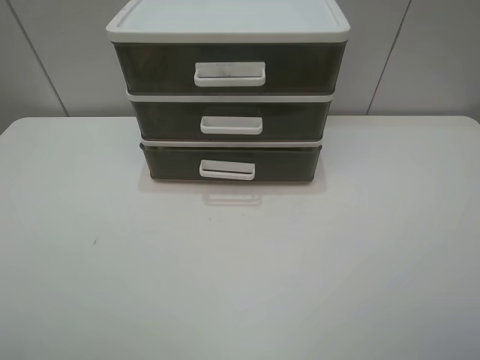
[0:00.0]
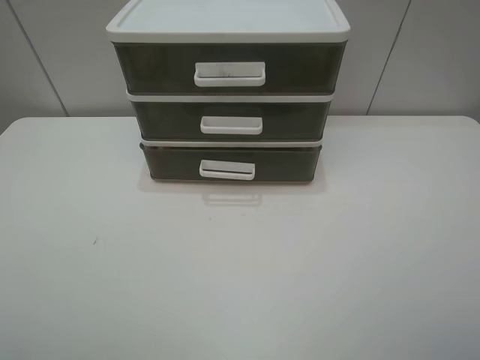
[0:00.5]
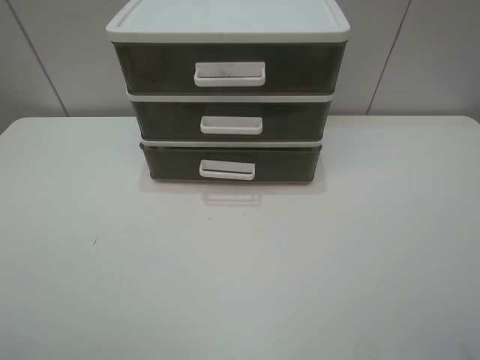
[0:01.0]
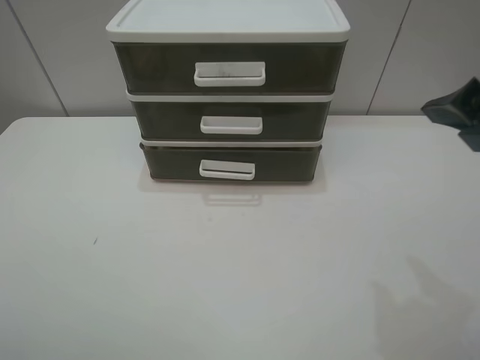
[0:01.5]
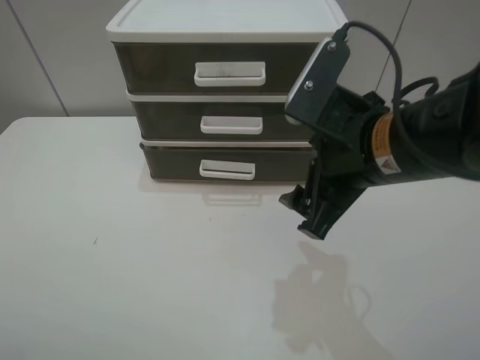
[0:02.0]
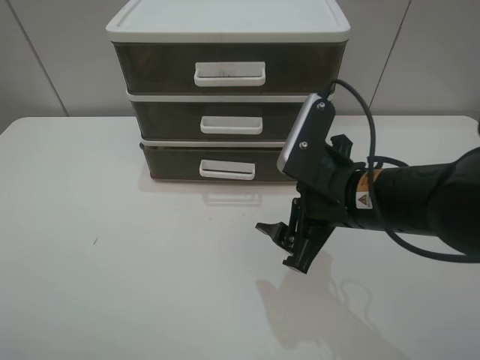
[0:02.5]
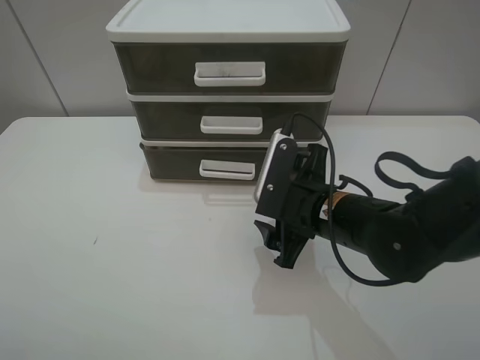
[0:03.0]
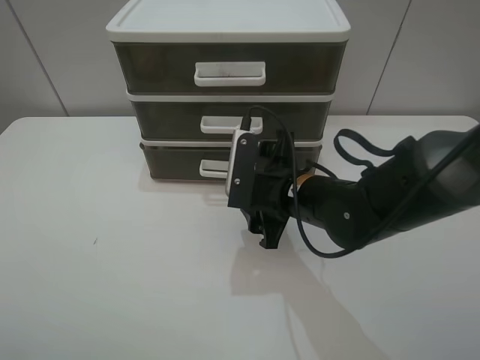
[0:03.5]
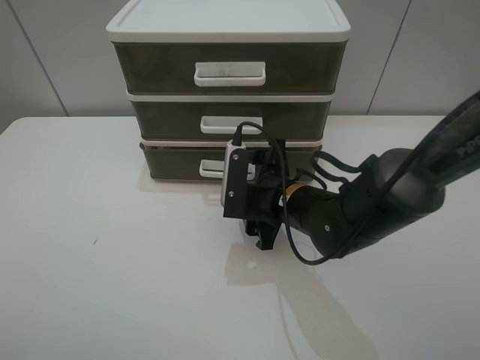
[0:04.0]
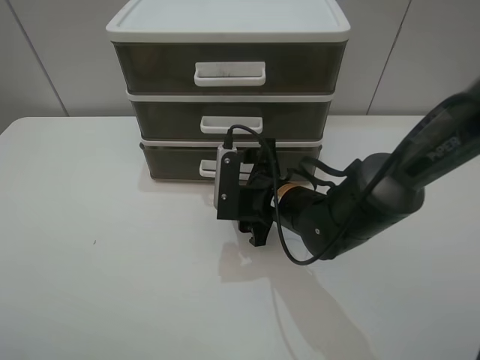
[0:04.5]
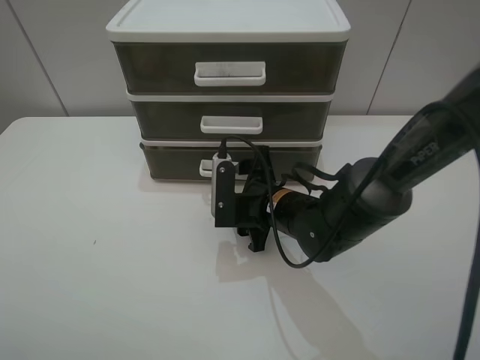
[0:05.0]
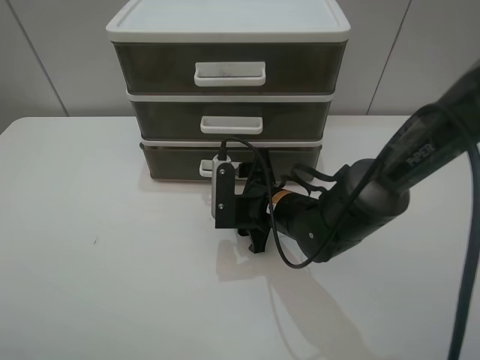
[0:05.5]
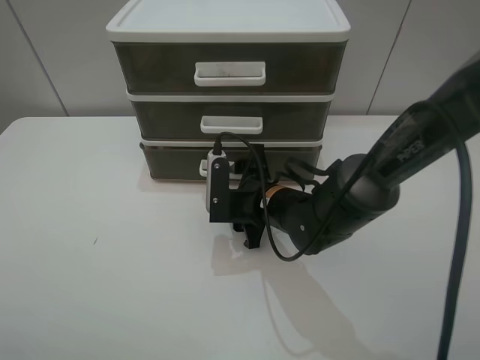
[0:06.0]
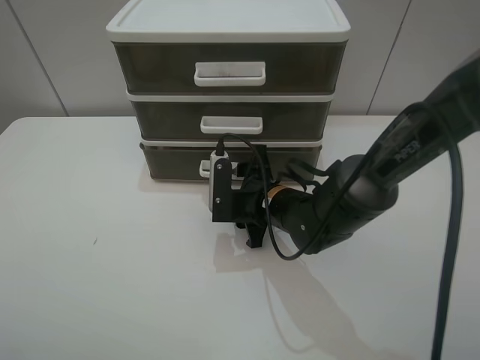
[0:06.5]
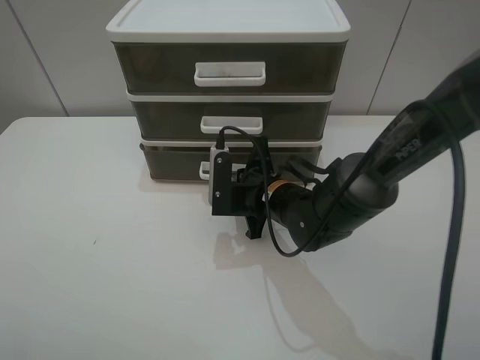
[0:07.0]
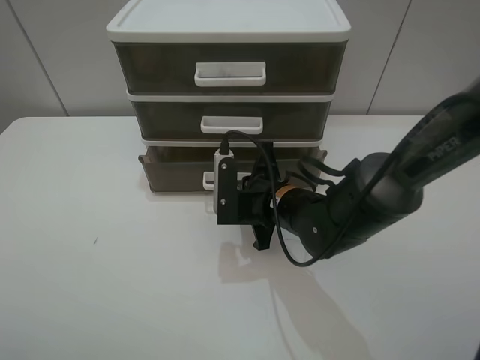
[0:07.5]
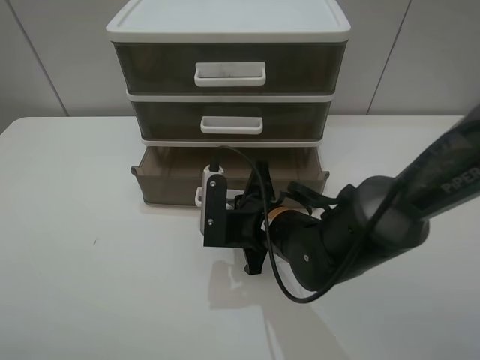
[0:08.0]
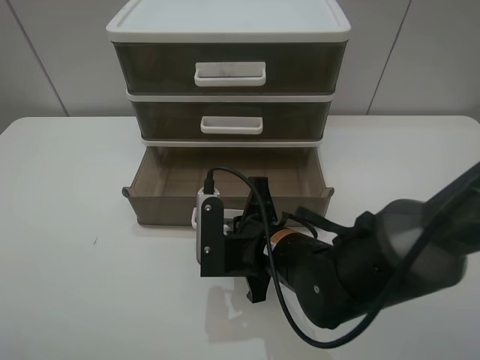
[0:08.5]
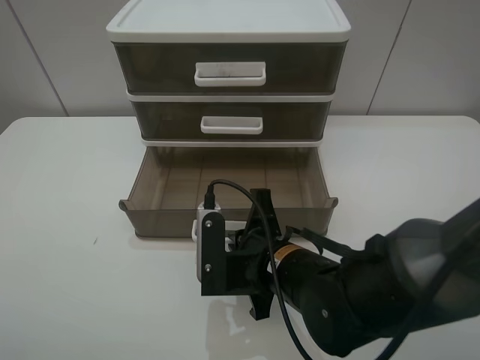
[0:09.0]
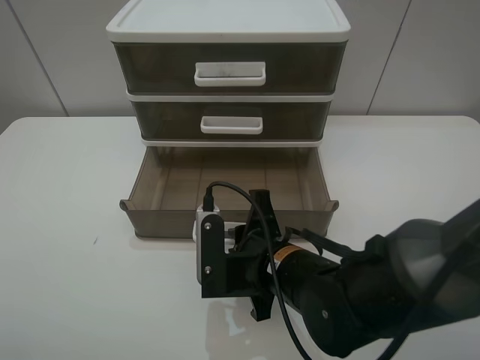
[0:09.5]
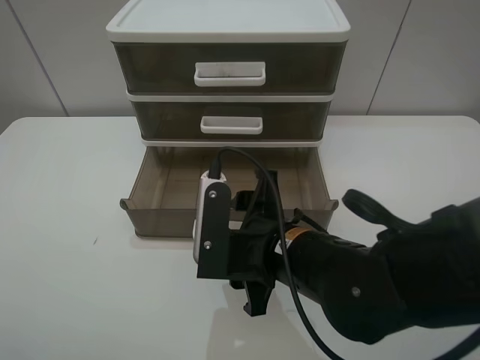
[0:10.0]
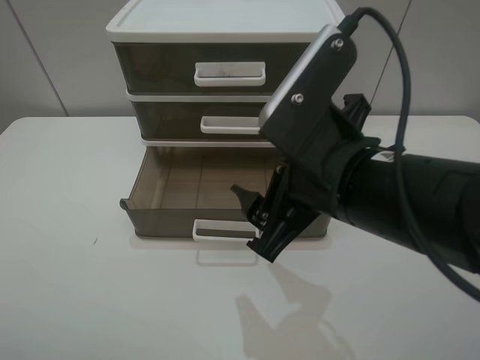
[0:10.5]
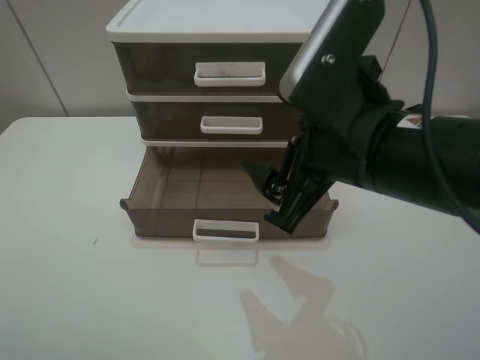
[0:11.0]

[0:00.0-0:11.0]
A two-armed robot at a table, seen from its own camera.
Task of the whole recording: open the bottom drawer.
Step, 0:00.0 to 0:07.0: Grab the bottom drawer with the right gripper.
Step, 0:07.5 to 0:09.5: Pull open the drawer with the right gripper.
0:00.0 to 0:02.0: The right gripper shifts roughly 25 cm forward and to the left.
0:02.0 to 0:03.5: The right gripper moves downward and forward, some 15 cm.
0:03.5 to 0:05.5: The right gripper moves approximately 5 cm.
0:05.5 to 0:07.5: The right gripper closes up.
0:07.5 to 0:09.0: The right gripper moves backward, roughly 10 cm.
0:09.0 to 0:11.0: The right gripper goes about 15 cm upward, and opens.

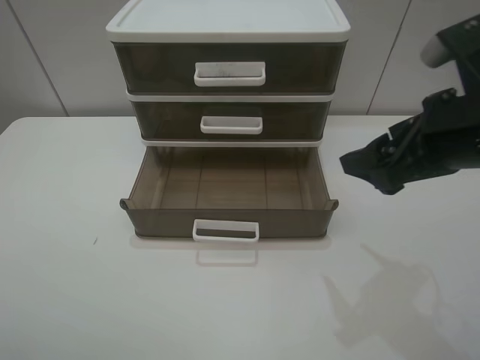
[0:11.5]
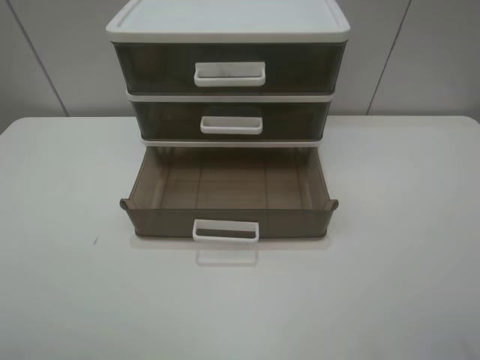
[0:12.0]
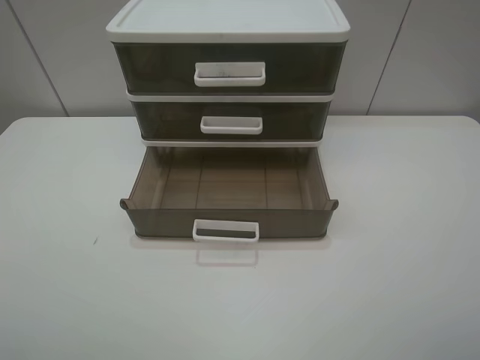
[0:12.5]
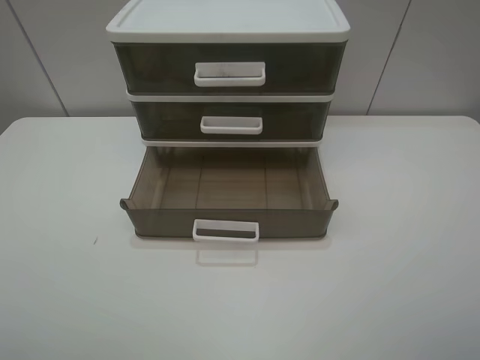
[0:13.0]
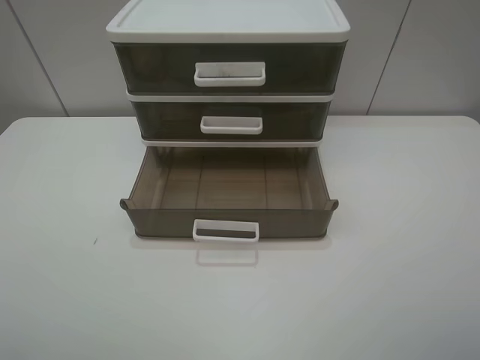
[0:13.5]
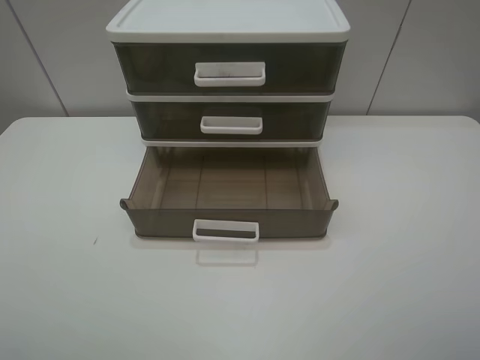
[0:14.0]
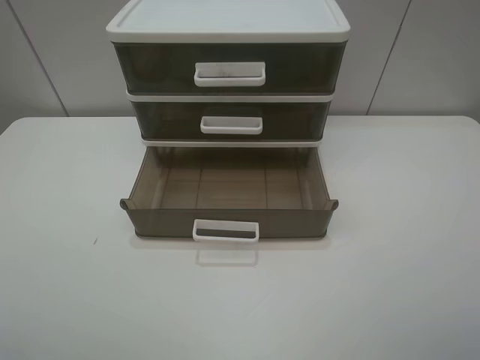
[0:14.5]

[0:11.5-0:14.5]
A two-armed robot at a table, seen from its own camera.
Task of the whole recording: open the bottom drawer.
0:11.5 to 0:13.0: The right gripper is displaced backward and to the right by approximately 20 cm.
